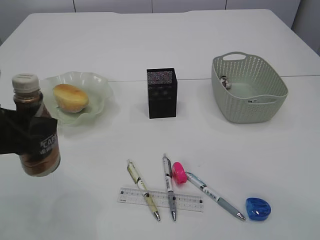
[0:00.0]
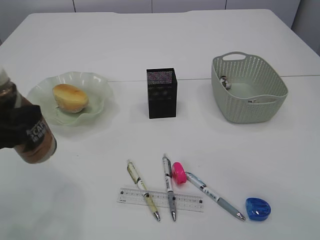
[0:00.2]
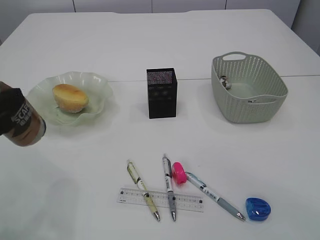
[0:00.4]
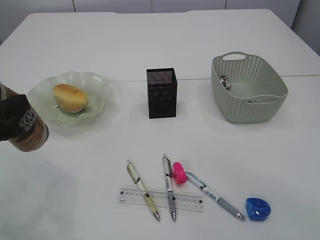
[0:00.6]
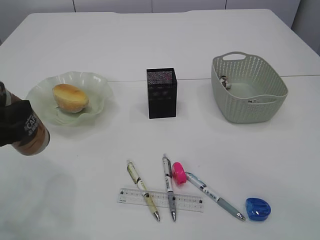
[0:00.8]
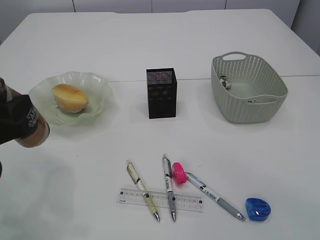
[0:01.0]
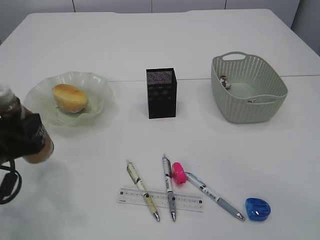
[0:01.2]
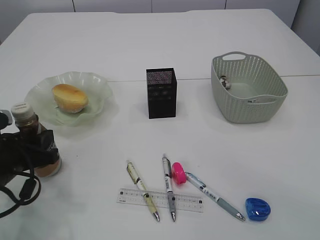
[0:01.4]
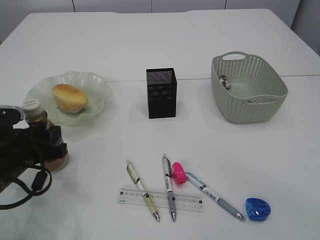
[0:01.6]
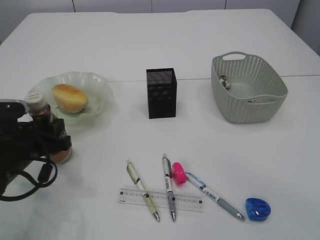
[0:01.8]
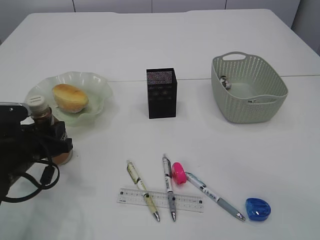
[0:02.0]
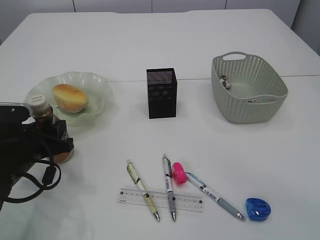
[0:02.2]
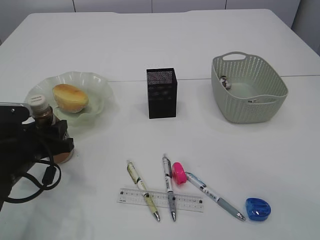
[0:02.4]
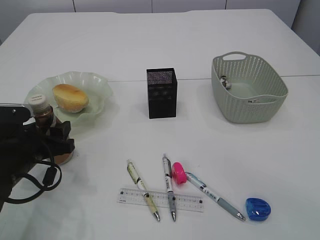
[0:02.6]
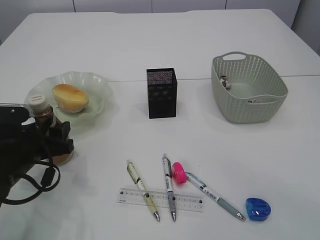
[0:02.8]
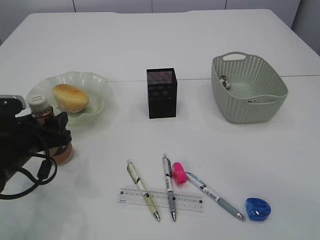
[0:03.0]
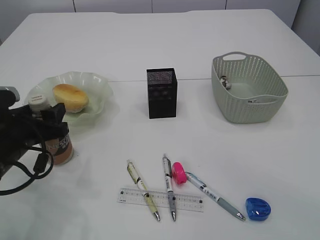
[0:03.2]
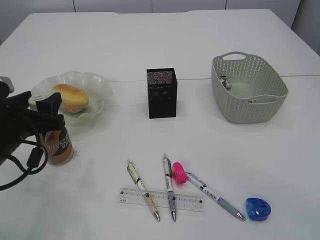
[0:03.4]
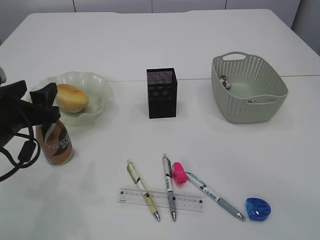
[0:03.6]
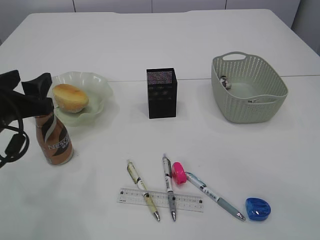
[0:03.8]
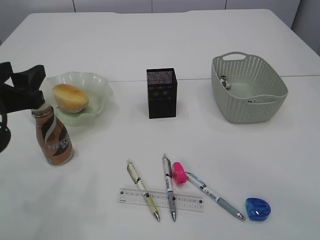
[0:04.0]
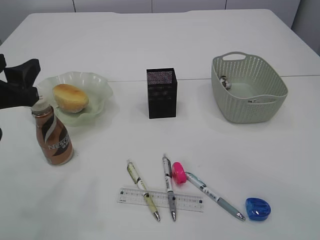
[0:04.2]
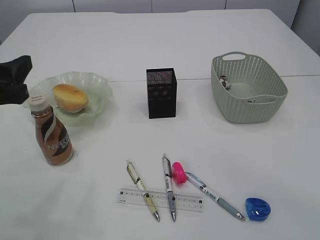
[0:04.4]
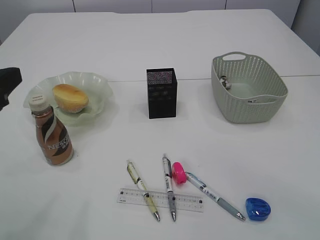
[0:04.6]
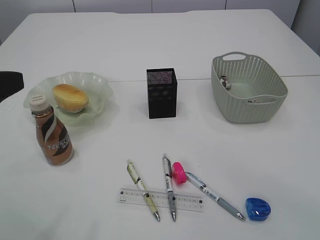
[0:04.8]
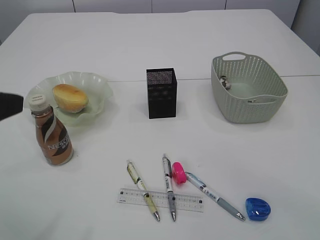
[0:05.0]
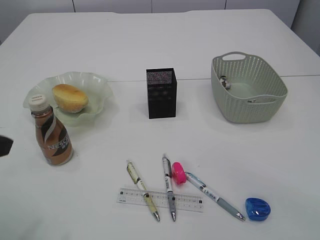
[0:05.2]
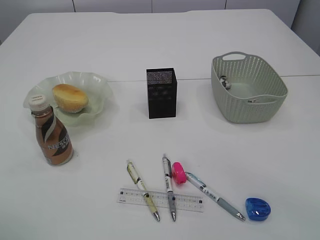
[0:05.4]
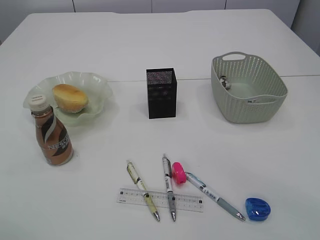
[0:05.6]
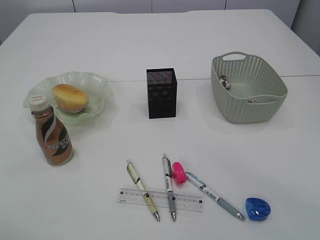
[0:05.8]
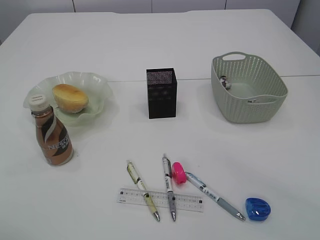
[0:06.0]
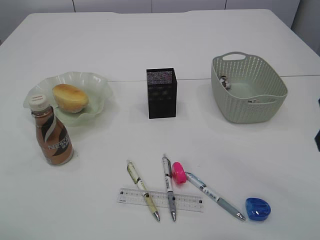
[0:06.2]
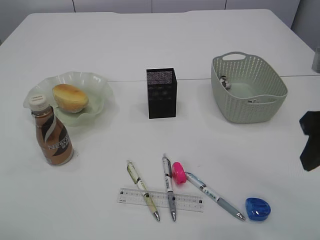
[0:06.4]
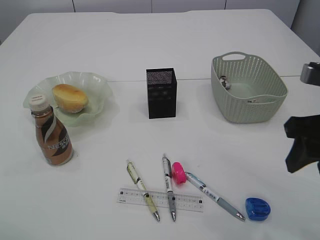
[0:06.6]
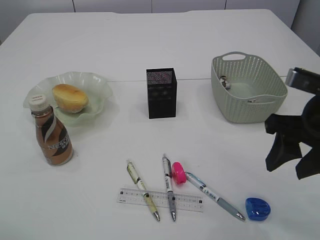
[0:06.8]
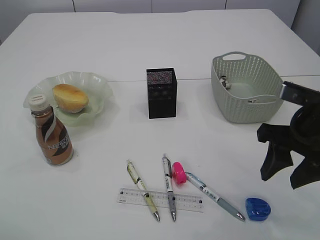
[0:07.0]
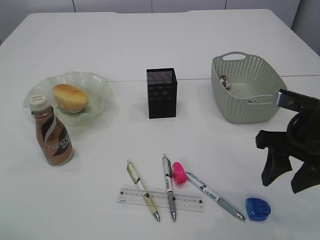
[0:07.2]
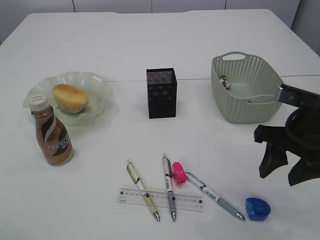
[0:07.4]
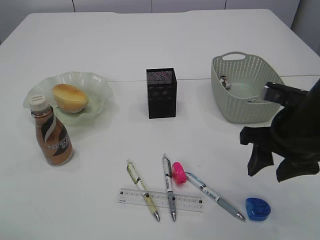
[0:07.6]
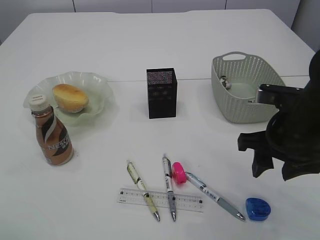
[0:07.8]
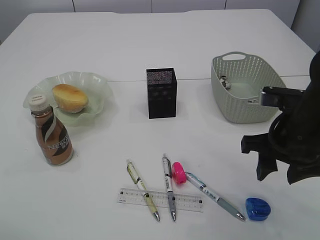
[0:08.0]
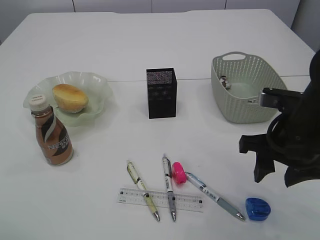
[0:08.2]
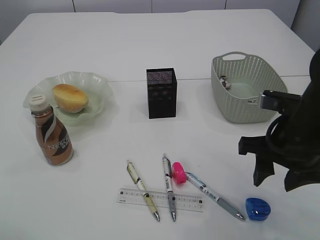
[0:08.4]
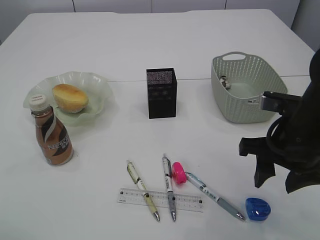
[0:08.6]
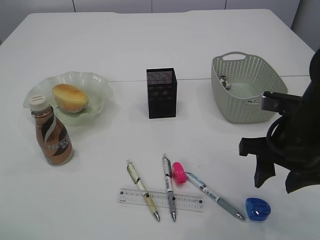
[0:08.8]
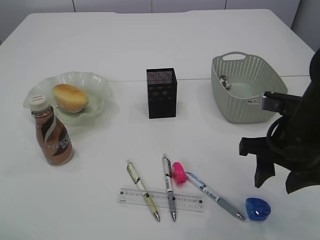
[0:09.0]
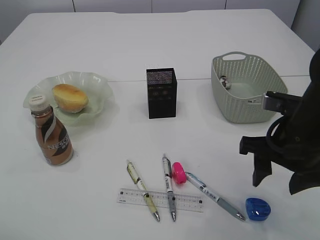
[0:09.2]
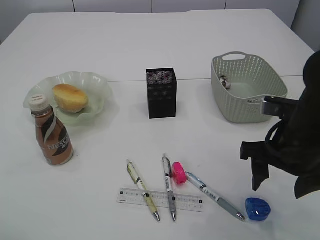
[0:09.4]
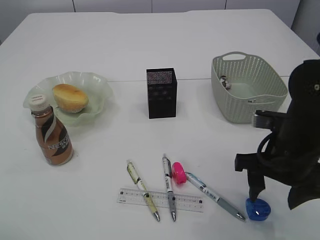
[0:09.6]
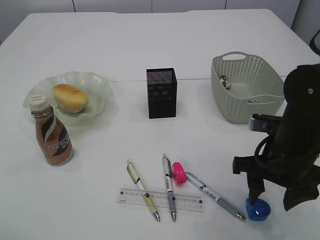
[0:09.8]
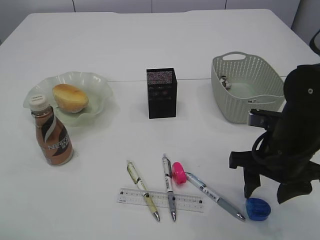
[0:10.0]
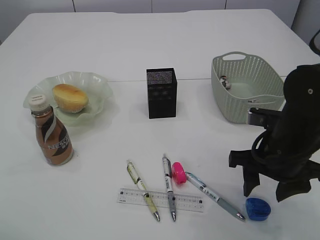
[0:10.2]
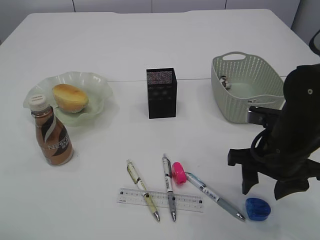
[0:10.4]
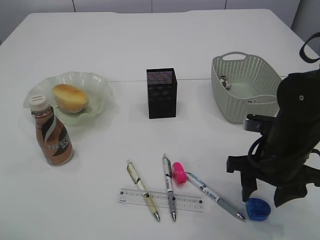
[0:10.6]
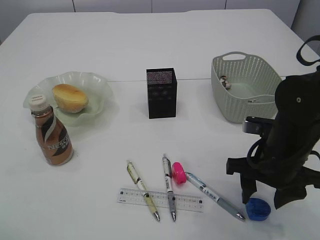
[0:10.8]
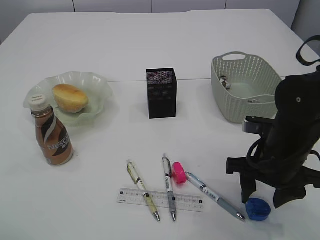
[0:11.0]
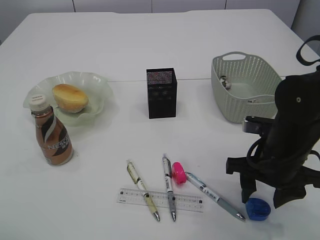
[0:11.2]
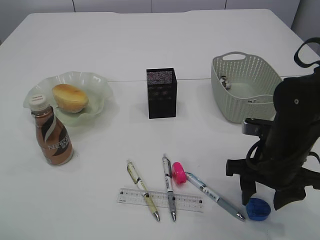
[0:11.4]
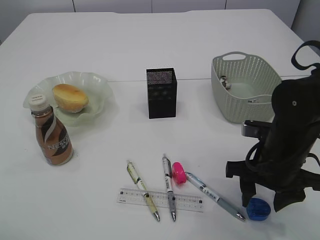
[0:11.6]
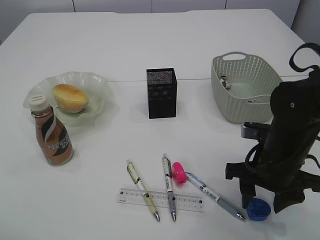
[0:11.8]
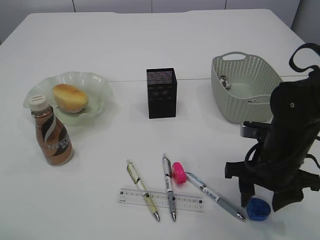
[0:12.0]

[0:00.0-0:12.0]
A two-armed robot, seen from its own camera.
Step, 0:00.0 to 0:04.2: Place the bottle.
0:00.0 to 0:01.6: The left gripper moves downward, roughly 10 cm.
0:01.6 to 0:03.0: The left gripper opens its fingers.
0:03.0 to 0:04.4: The left gripper is displaced upward by some 15 cm.
0:04.4 to 0:06.0: The left gripper goes approximately 10 cm backward and upward.
0:06.0 to 0:07.6: The right gripper heads downward and forward, covering about 15 cm.
0:07.6 to 0:10.4: The grippers stay close to where they were, moving slightly.
0:10.4 to 0:12.0: There are only small adjustments of the grippers.

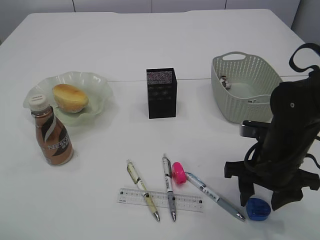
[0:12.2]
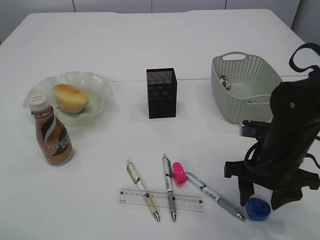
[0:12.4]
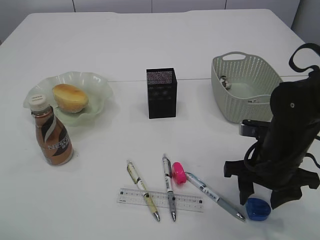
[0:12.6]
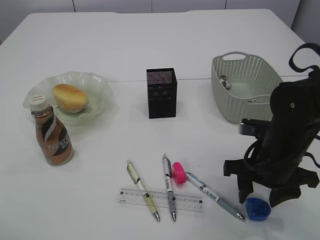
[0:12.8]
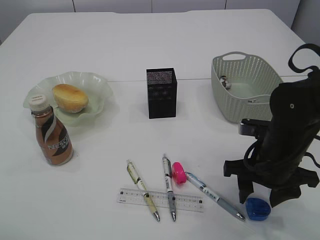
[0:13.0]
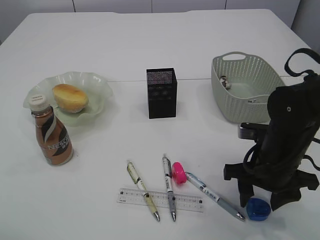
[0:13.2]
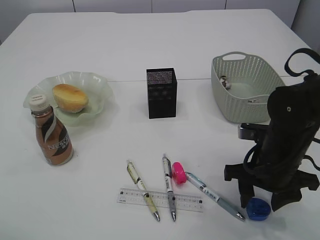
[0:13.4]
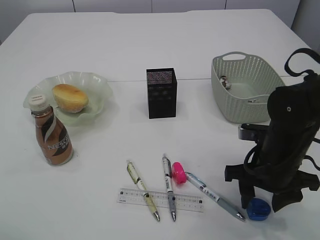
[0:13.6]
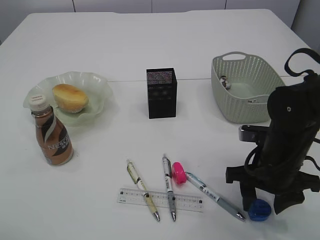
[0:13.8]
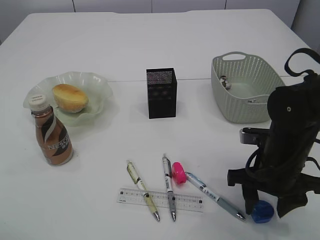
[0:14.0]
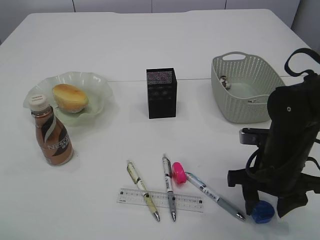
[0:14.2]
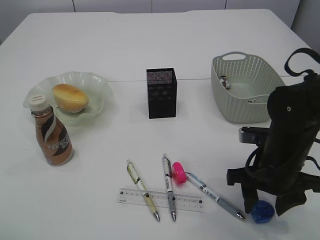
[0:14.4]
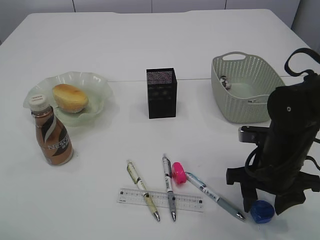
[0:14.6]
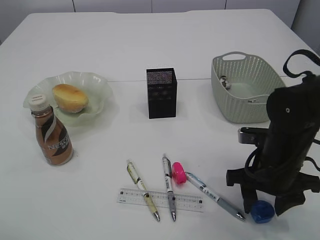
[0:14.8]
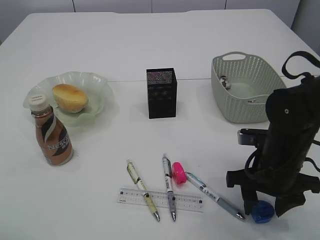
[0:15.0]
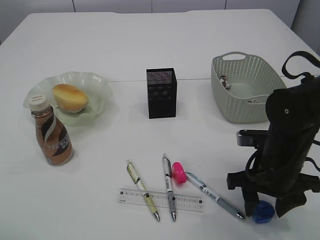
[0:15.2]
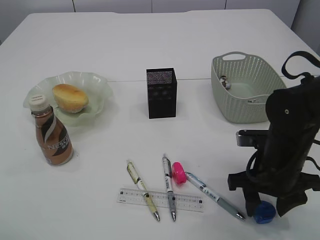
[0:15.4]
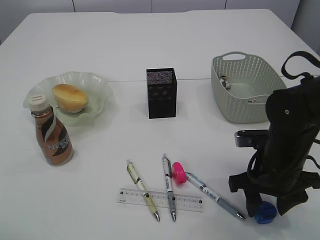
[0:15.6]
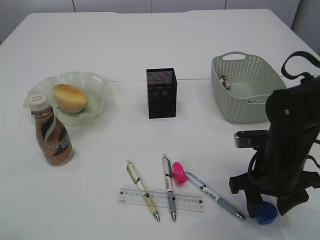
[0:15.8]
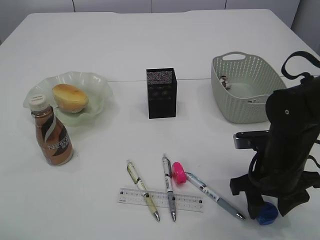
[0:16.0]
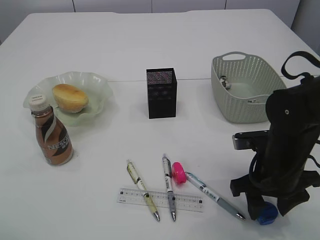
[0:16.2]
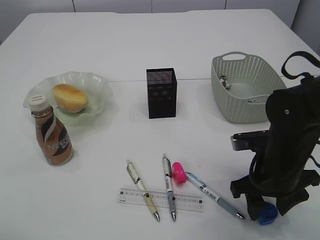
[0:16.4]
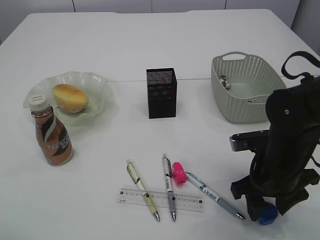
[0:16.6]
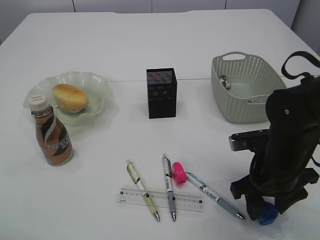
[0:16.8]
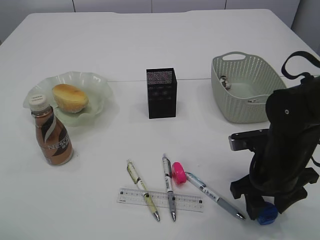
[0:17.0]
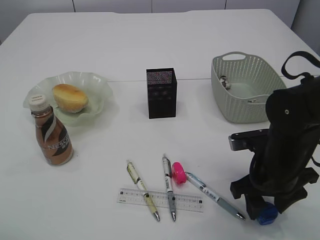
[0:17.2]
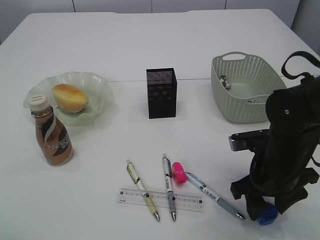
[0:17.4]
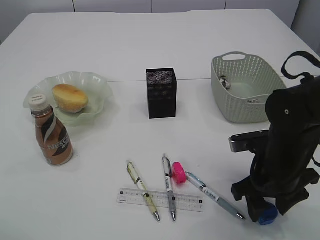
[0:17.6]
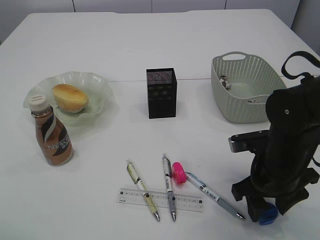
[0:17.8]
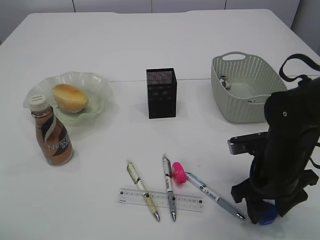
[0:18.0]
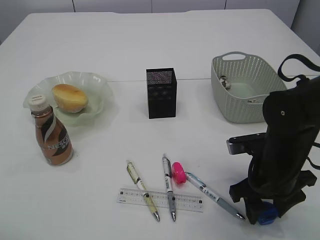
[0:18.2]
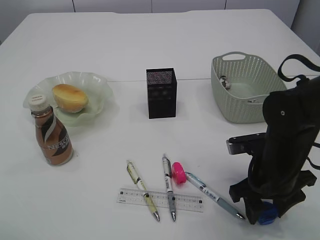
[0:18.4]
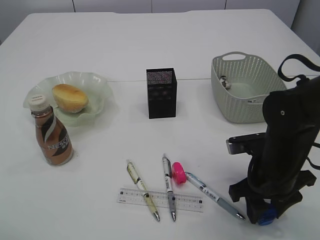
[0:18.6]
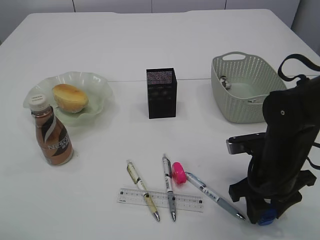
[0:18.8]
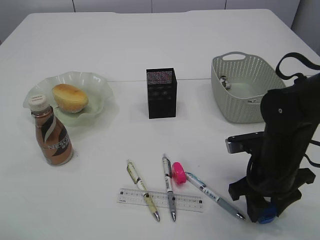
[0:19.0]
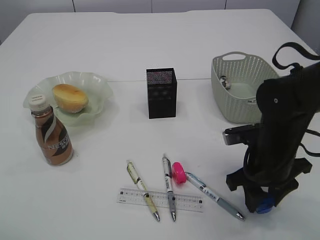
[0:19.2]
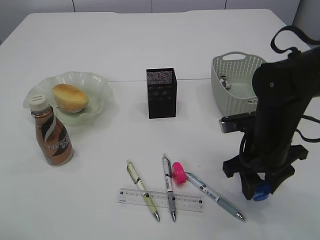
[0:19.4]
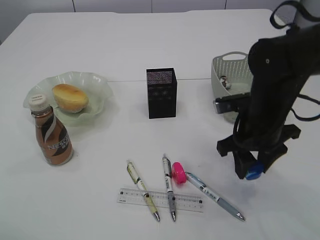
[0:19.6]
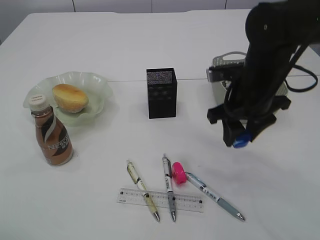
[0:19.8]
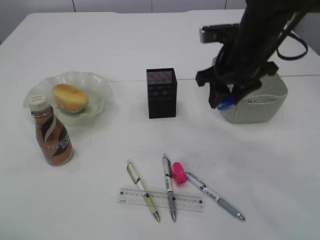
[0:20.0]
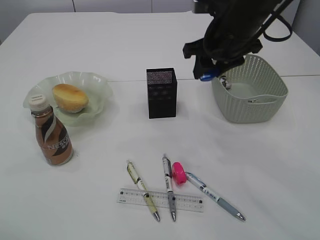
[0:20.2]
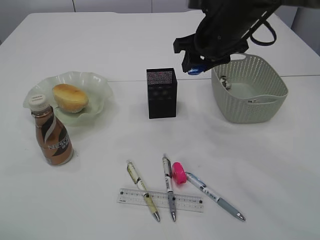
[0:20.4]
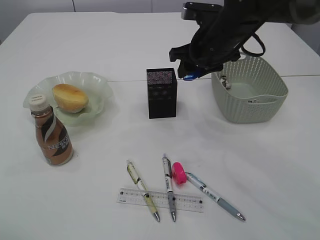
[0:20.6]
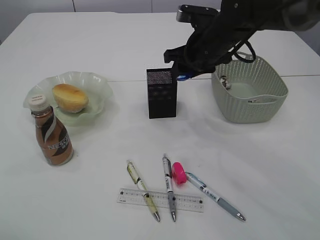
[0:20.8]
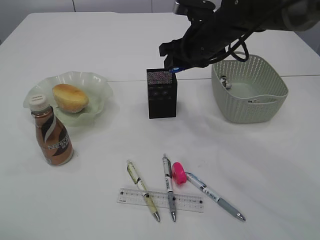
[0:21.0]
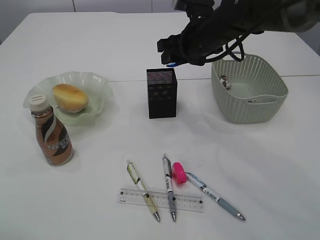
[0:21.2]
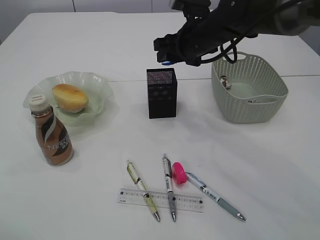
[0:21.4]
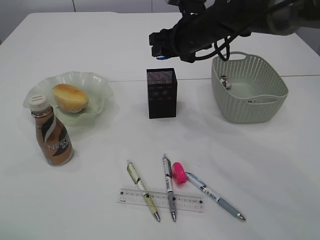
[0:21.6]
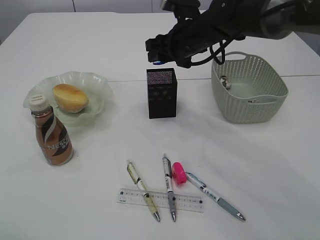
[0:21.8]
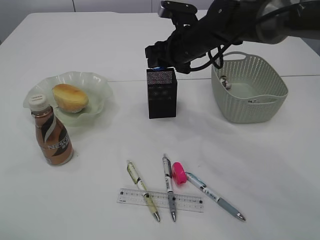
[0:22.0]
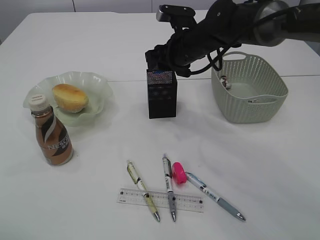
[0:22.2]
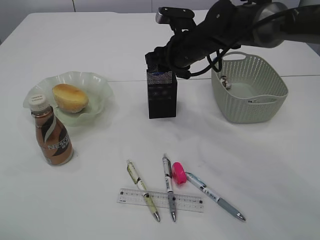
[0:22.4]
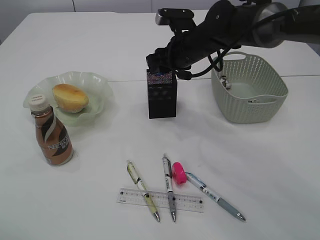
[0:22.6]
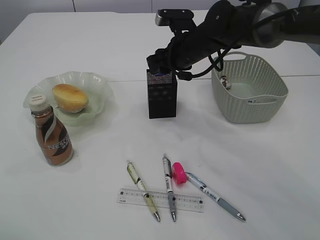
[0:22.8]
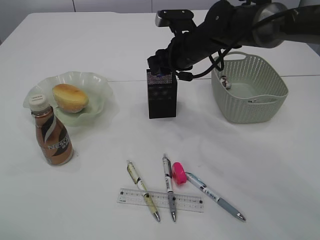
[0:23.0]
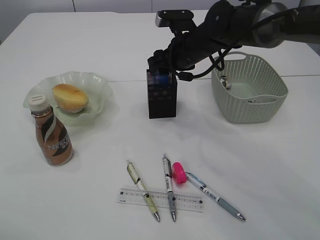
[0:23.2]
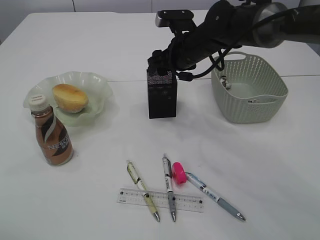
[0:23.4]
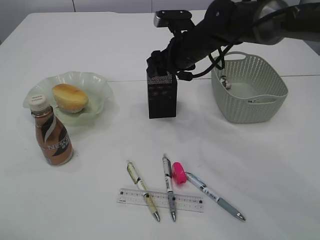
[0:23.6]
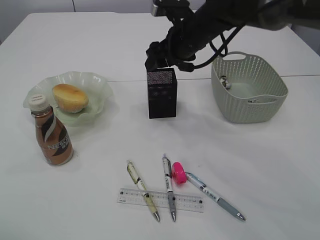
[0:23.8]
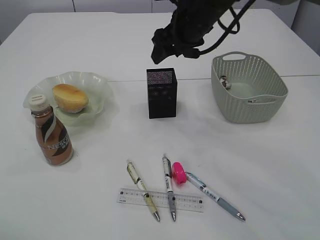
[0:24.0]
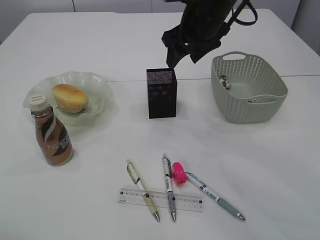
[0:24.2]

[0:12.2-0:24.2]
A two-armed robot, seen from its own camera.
Step, 0:12.2 to 0:19.4: Pick up the blue pencil sharpener.
Step, 0:19.6 to 0:23.8: Place the blue pencil sharpener into the pen holder.
0:12.2 to 0:13.8: Both grippers stay about where they are.
0:13.8 to 0:15.2: The two grippers keep their place.
0:15.2 to 0:16.6: The grippers stay close to where they were, moving slightly.
0:16.6 to 0:18.2: Neither gripper changes place.
0:18.2 to 0:19.8: The right gripper goes roughly 10 cm upward and forward.
0:19.8 to 0:21.2: The right gripper goes roughly 10 cm forward and to the left.
0:21.2 to 0:22.6: The grippers stay close to where they were, moving slightly.
0:22.6 to 0:24.2: The right gripper goes about 10 cm upward.
